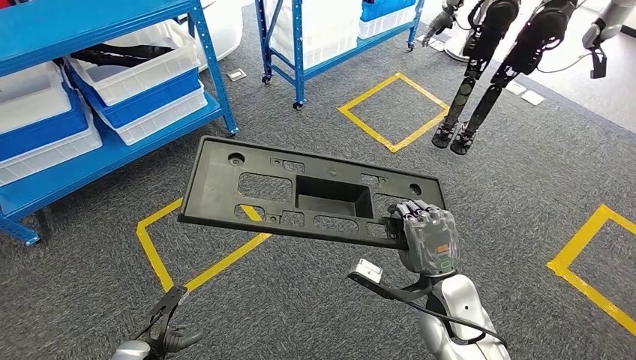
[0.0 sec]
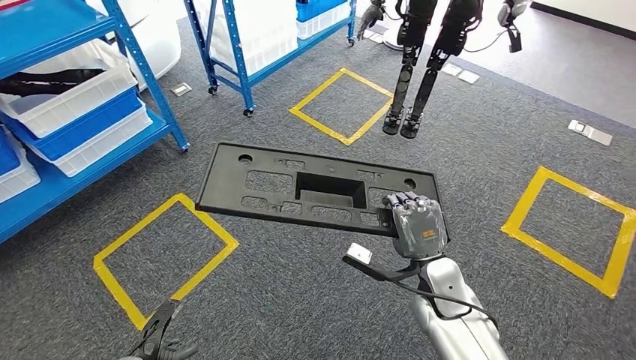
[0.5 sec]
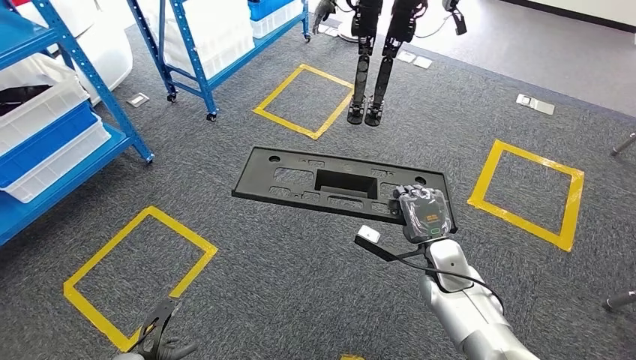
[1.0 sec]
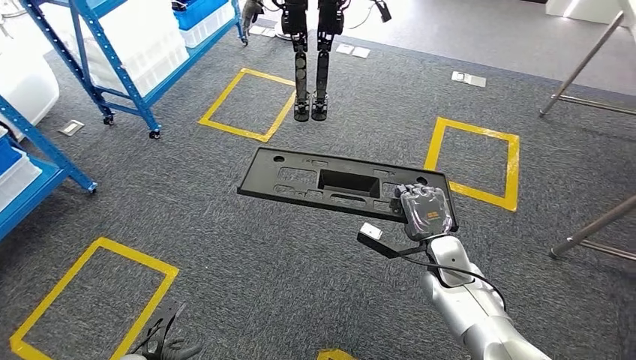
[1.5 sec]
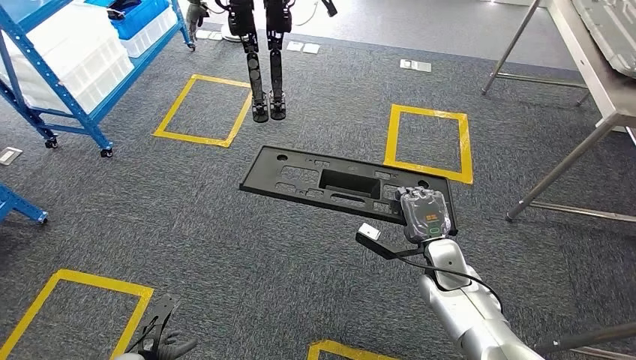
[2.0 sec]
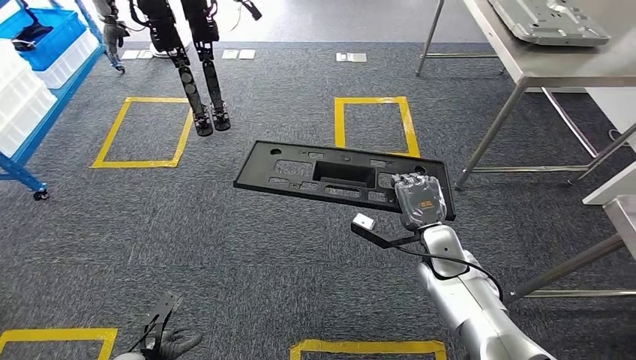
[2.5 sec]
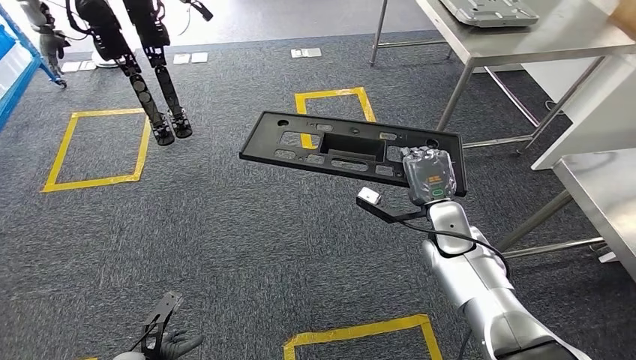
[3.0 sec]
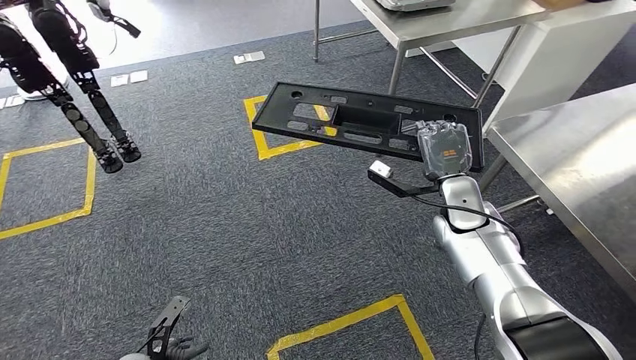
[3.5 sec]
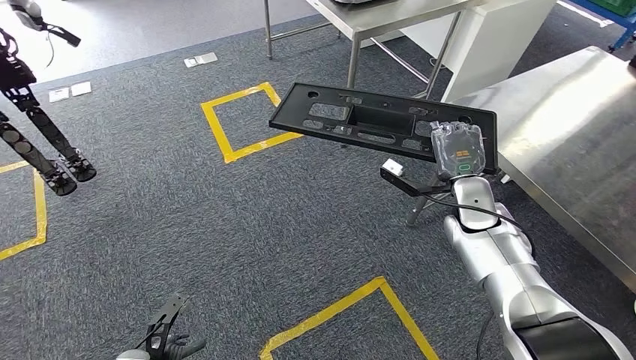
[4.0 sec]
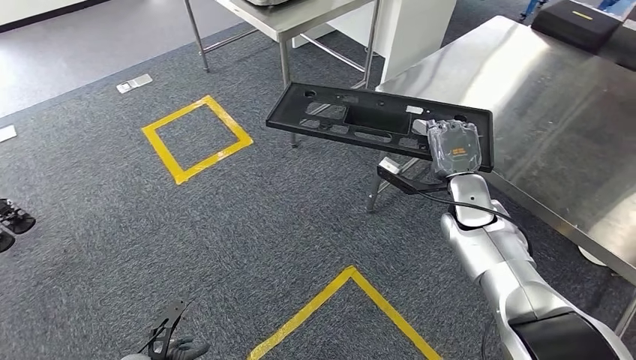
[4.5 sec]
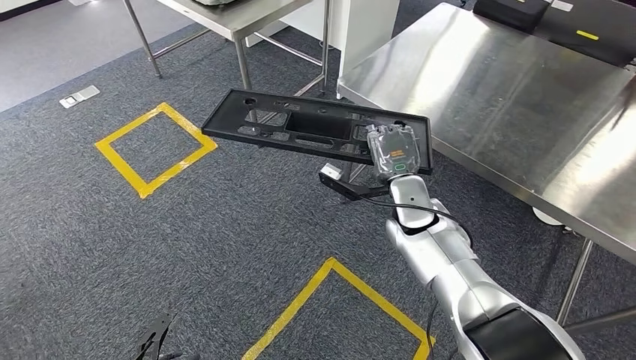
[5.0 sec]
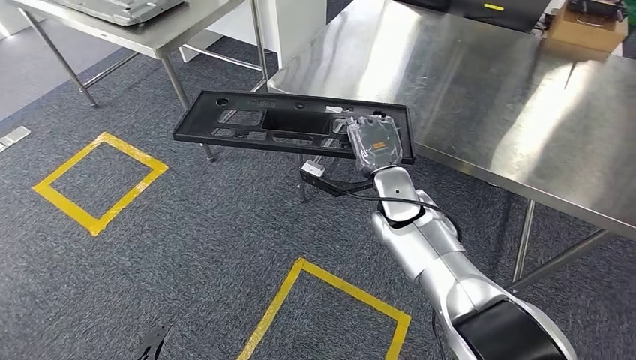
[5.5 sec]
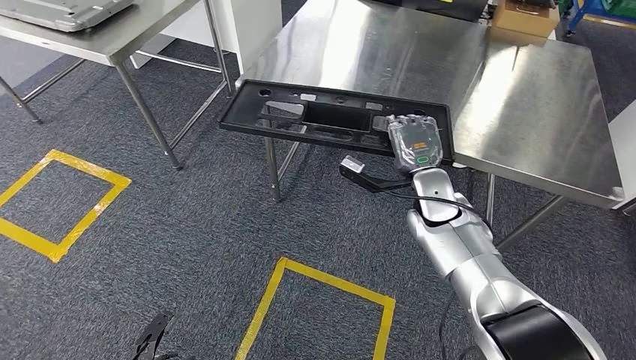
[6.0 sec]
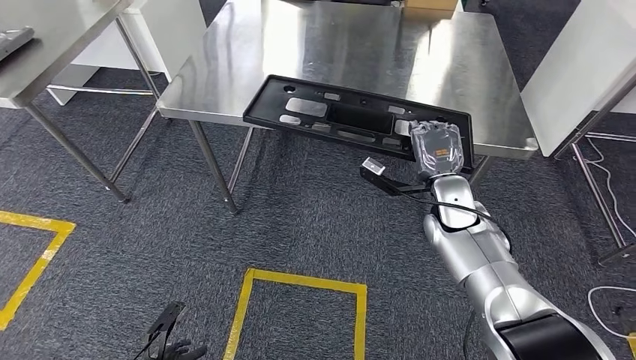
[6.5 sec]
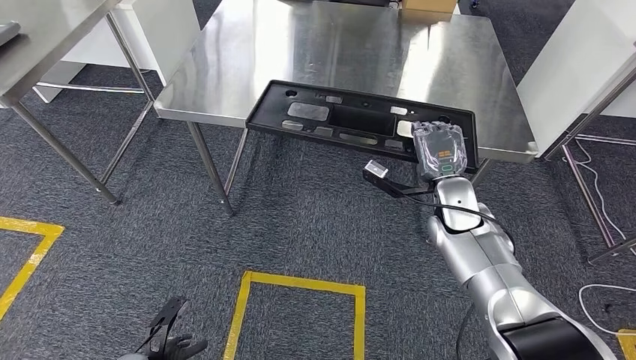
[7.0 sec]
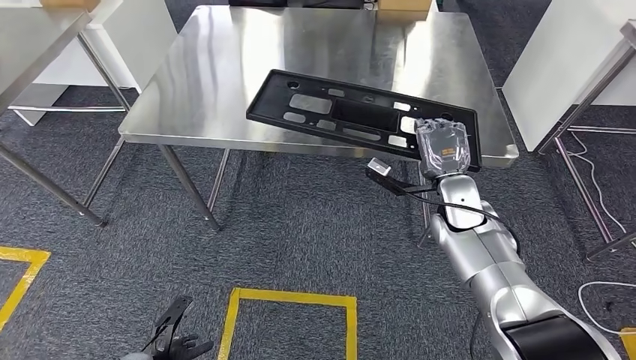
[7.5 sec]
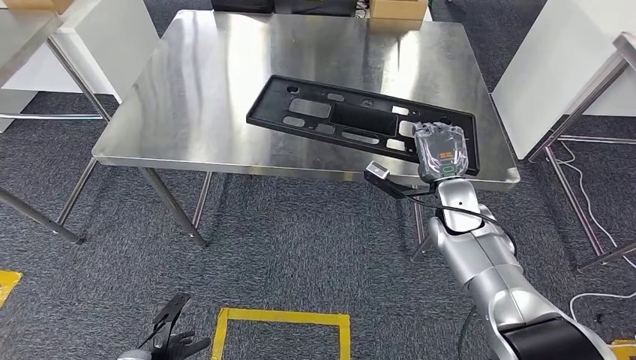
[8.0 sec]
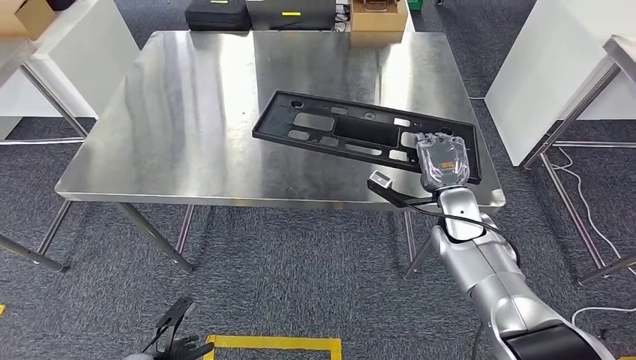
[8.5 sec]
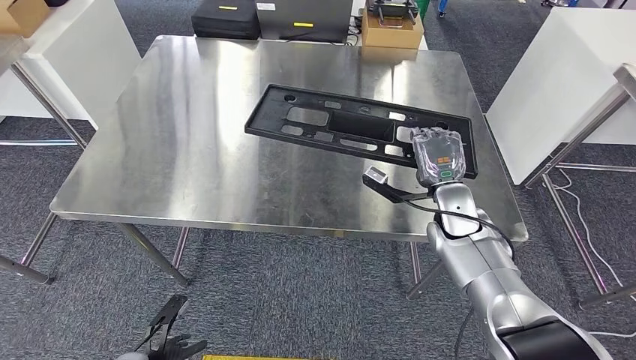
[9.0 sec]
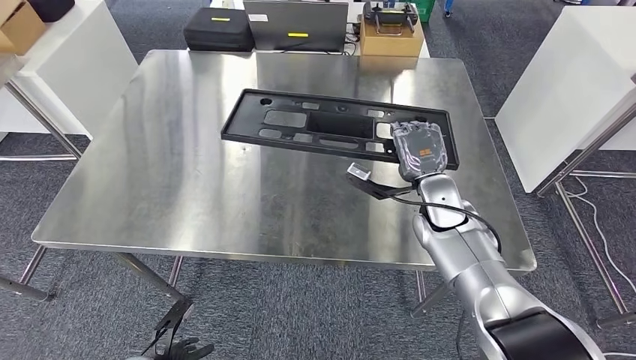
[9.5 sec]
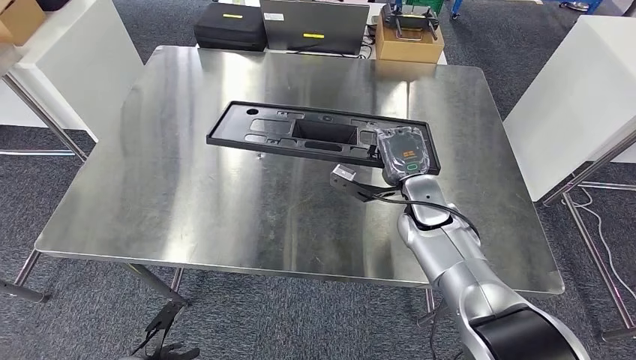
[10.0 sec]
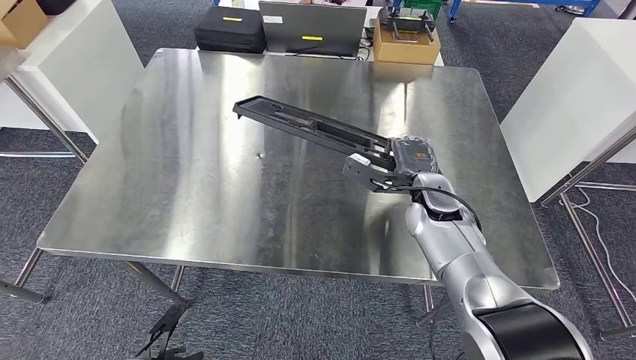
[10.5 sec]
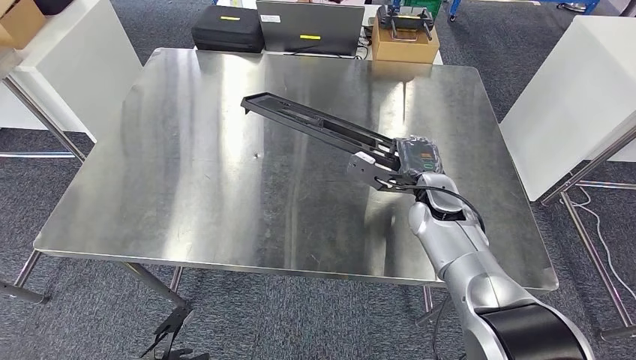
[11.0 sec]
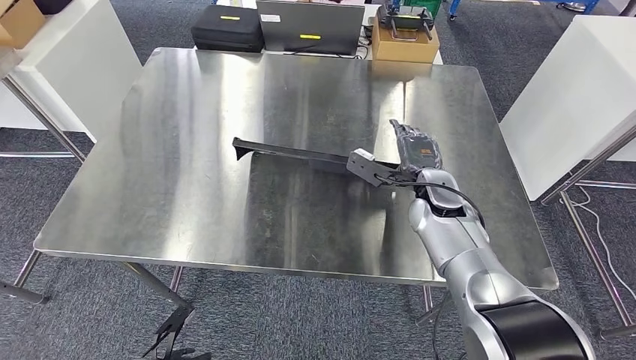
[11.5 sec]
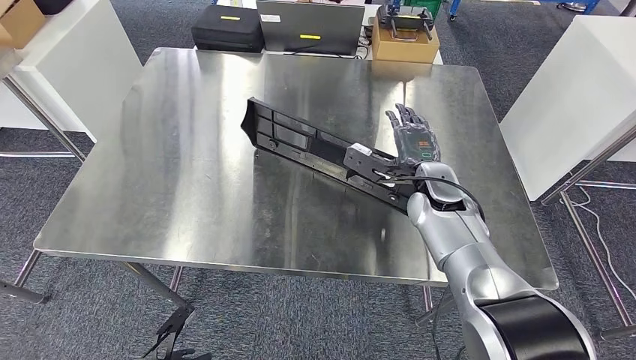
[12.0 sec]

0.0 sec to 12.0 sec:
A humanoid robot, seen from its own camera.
Step, 0.0 sec to 3.5 sec: Move the large material to the workbench.

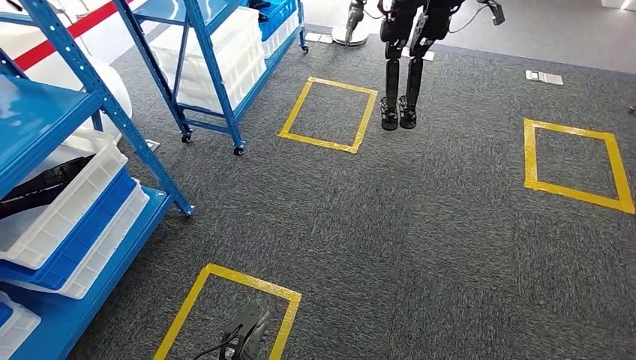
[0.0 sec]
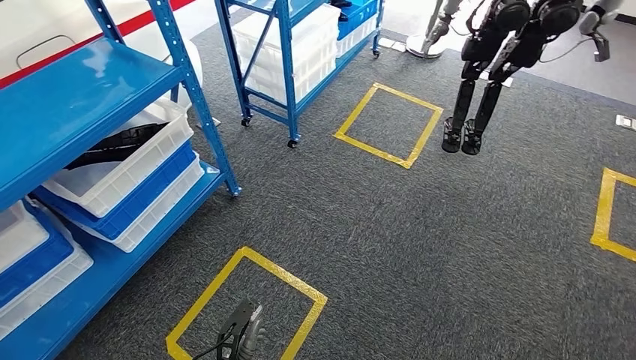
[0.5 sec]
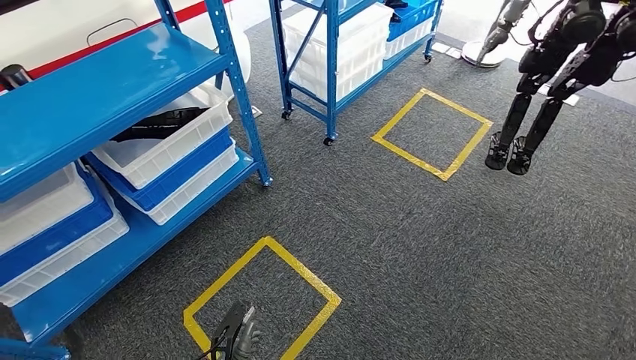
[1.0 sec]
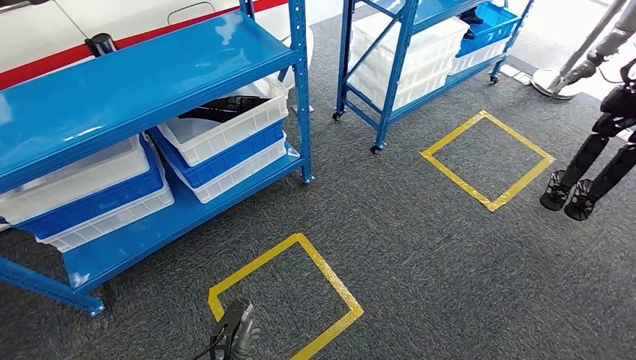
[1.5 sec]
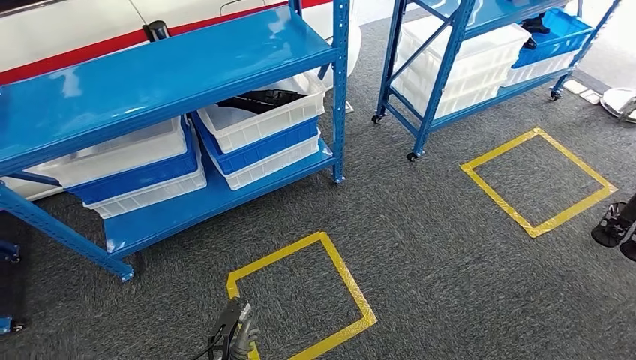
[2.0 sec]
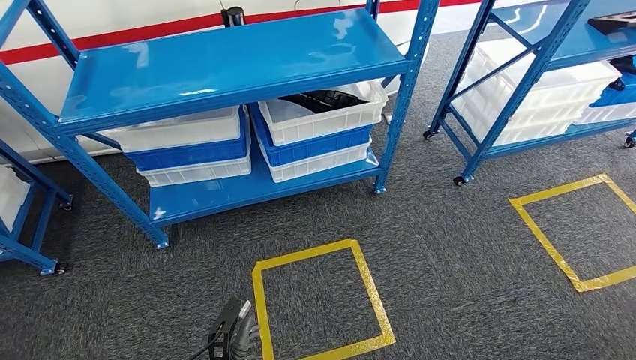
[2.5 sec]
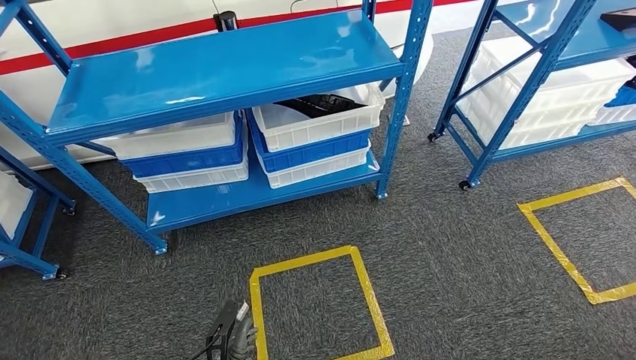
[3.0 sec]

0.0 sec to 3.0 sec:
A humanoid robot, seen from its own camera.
Step, 0.0 sec to 3.0 sec: Move to the initial position of the shelf.
